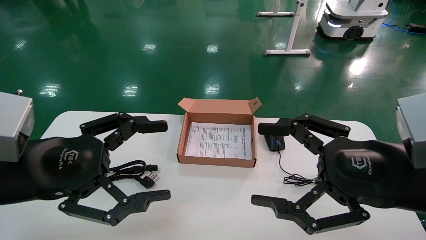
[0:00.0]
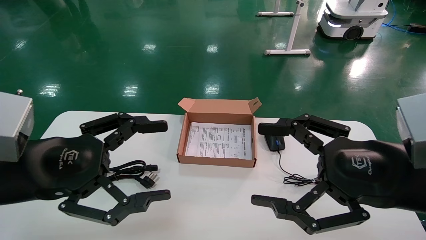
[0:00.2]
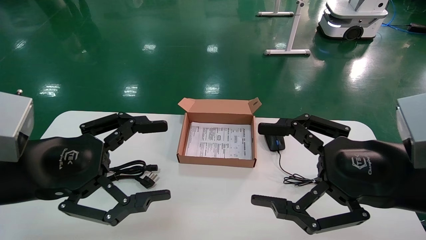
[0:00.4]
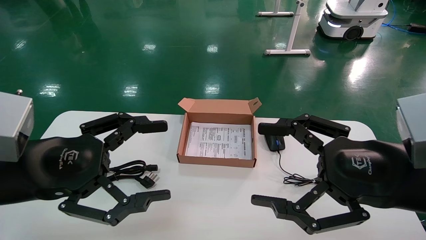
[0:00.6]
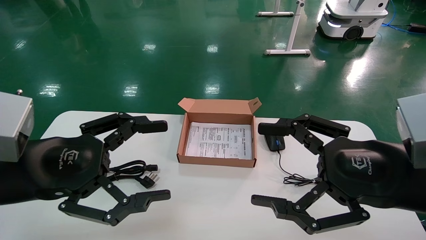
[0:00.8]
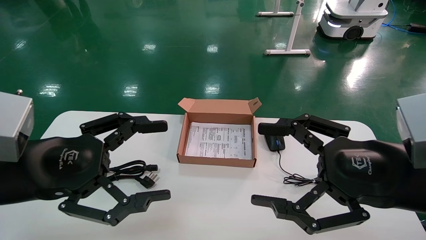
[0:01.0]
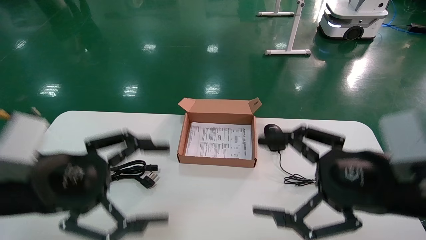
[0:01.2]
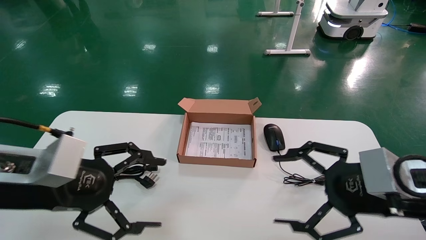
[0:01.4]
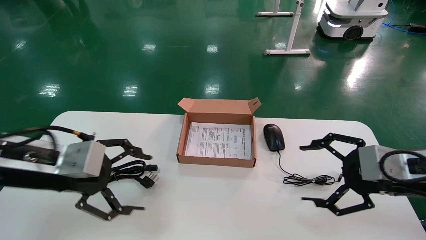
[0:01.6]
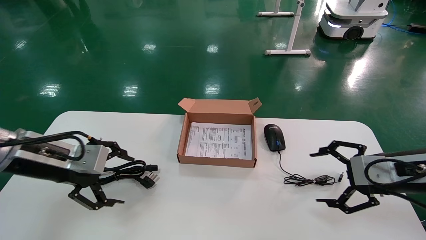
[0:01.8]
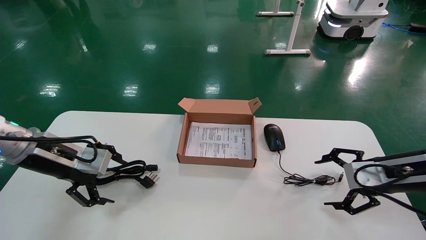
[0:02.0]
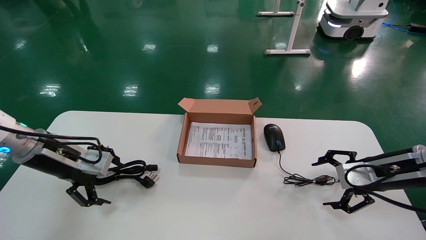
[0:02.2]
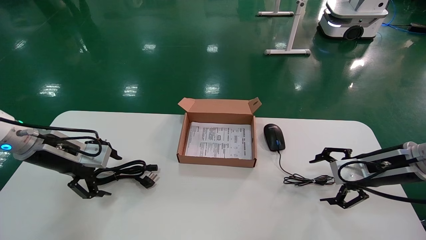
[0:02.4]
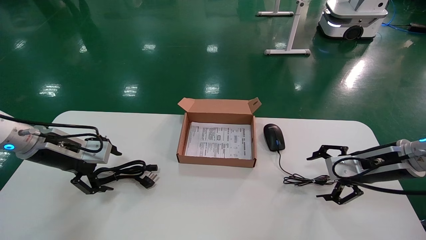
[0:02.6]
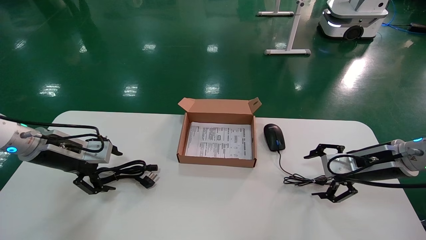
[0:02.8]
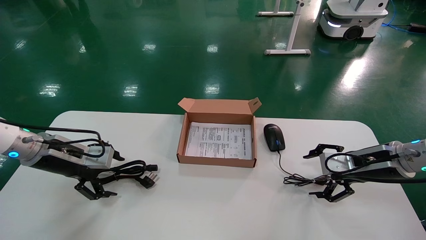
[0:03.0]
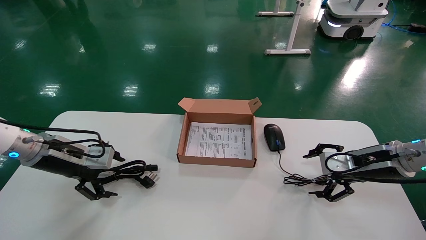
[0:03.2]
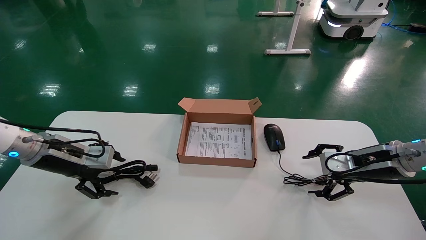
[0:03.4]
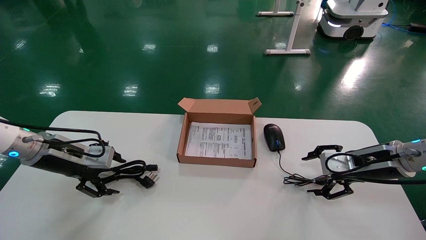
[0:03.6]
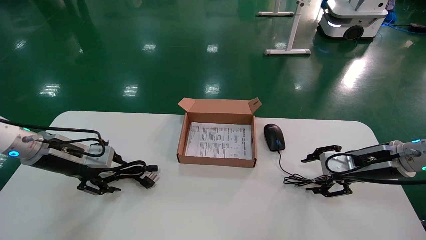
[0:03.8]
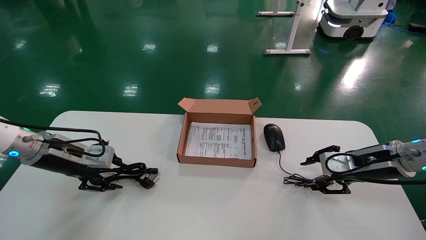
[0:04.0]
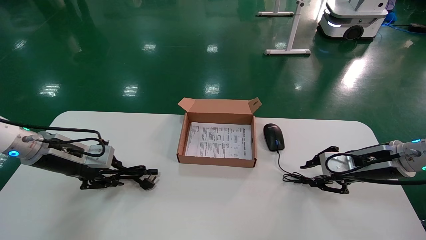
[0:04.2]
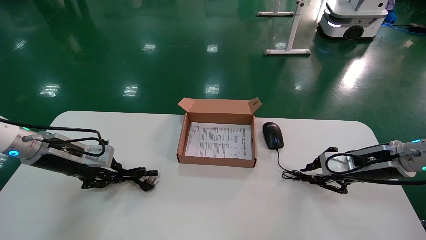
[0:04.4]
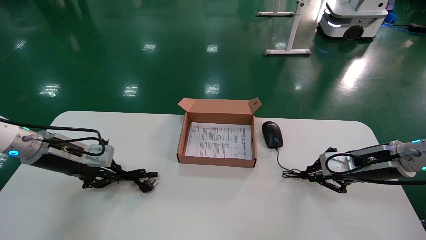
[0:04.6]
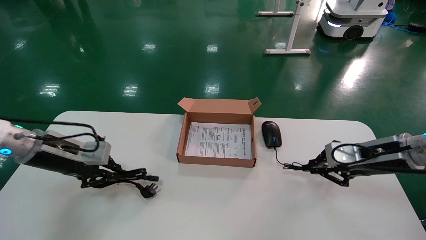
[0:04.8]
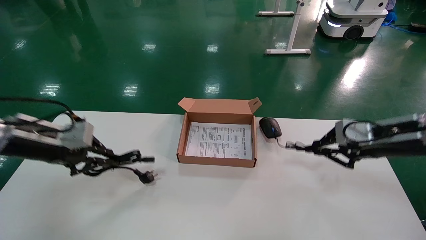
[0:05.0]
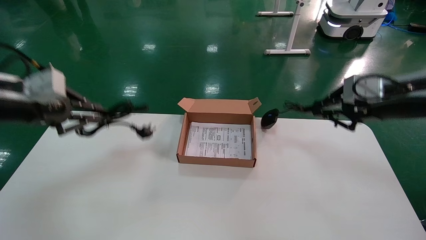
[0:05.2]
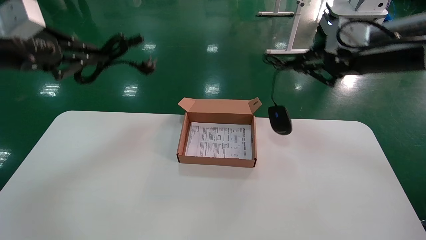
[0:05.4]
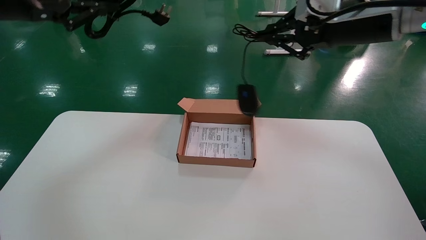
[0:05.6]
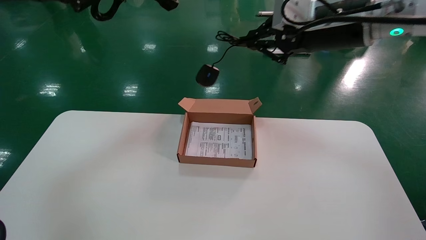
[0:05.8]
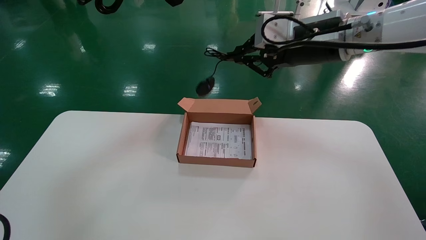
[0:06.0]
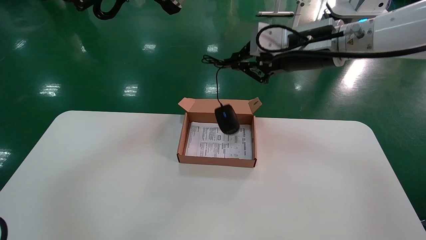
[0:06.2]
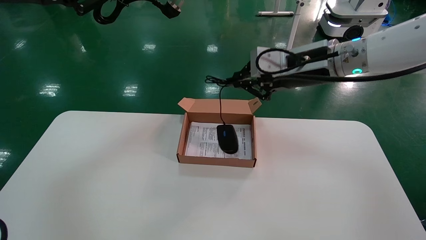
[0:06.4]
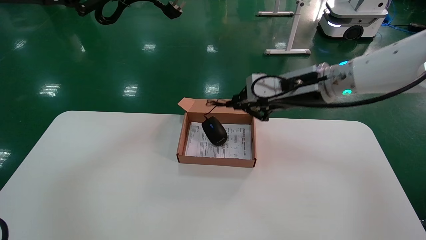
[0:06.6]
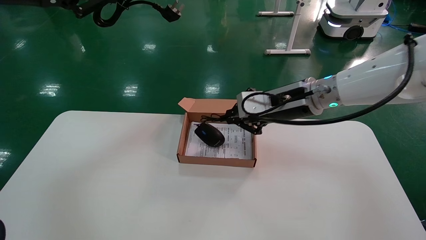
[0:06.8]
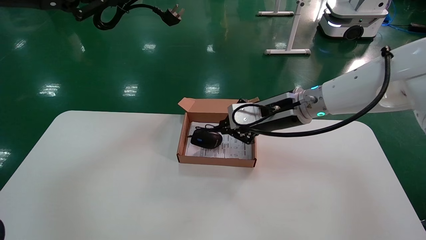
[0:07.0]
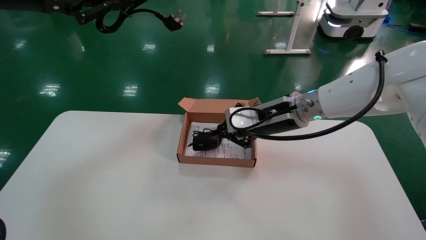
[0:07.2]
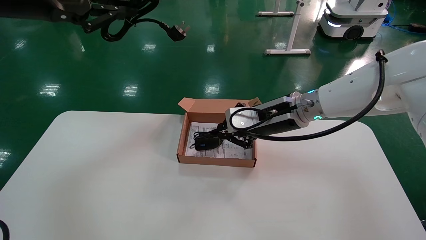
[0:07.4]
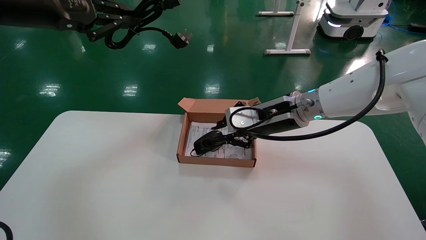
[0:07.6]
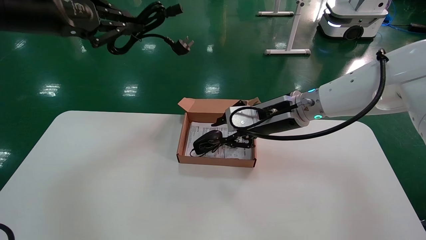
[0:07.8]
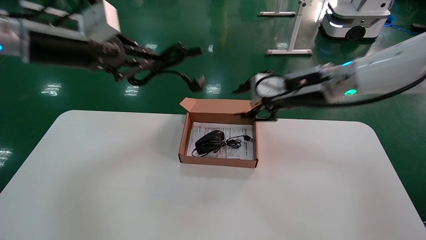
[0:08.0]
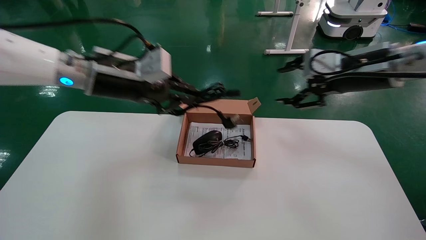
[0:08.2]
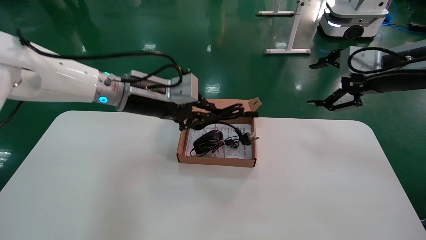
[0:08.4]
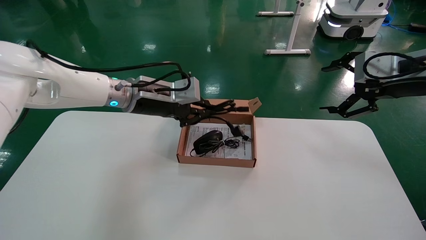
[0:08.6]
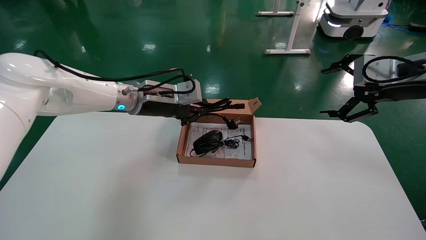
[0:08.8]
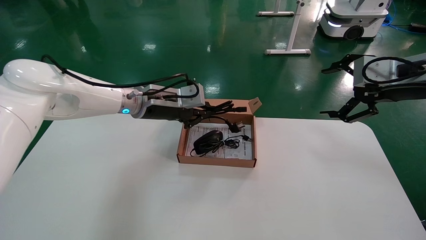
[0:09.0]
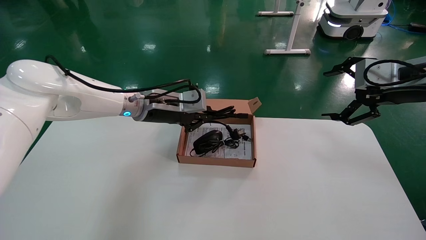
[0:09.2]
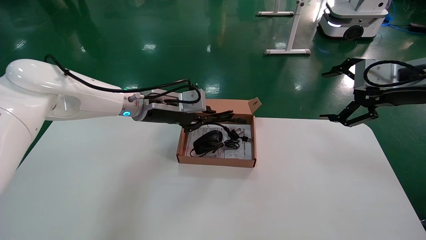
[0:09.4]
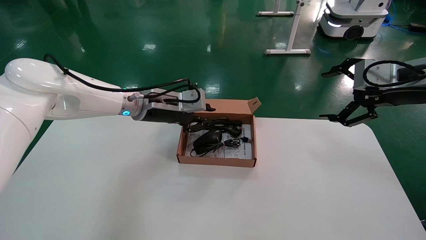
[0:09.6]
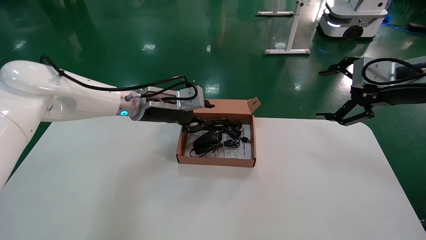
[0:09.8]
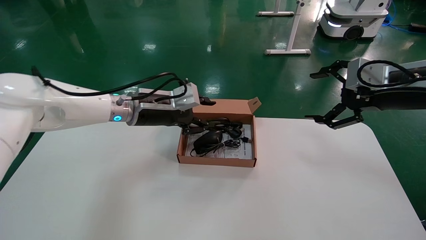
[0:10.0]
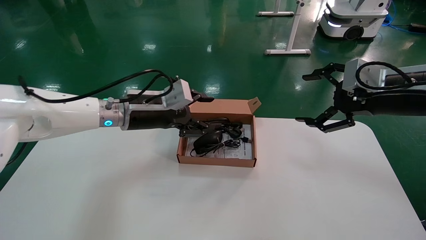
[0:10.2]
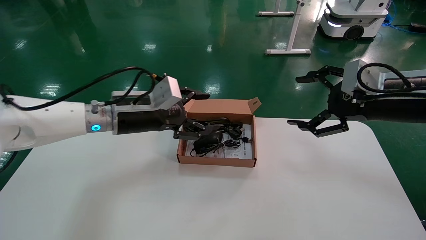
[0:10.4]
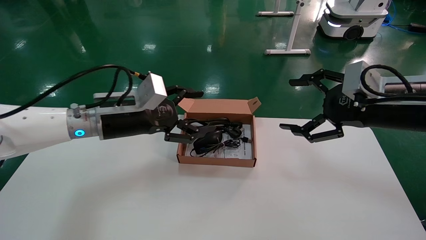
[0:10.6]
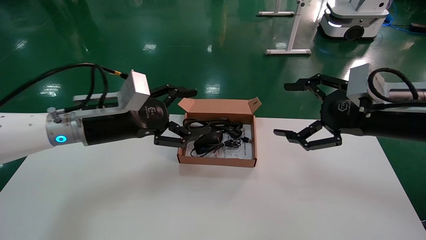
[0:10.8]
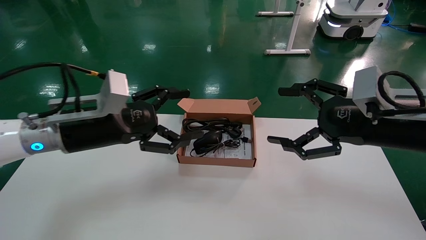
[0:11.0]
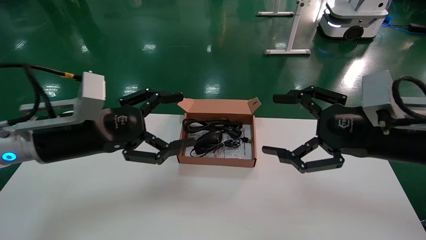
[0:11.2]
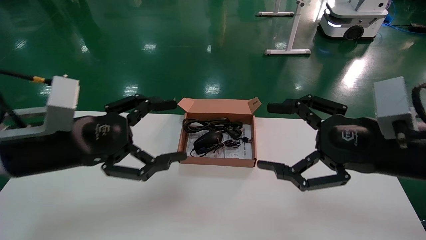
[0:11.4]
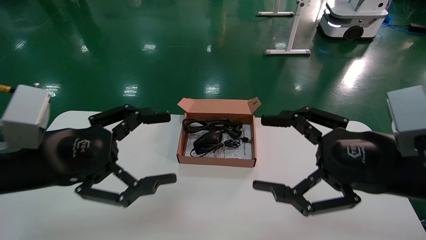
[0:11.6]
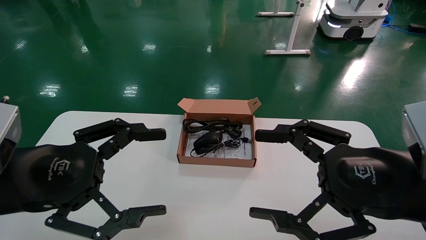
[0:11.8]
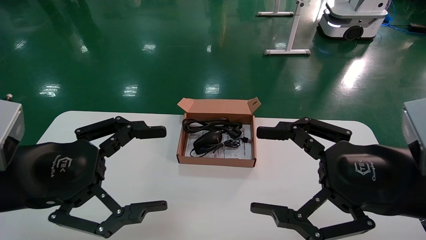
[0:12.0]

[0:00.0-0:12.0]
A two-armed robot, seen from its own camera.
Step, 0:01.4 to 0:04.8: Grab and lift both the mouse and power cord from the accessory packaging area at the same time.
Step, 0:05.0 to 0:10.0: Place the mouse and power cord into the box.
0:00.0 to 0:01.6: The right gripper moves forward and to the right, some 10 cm, while the left gripper shifts some 5 cm forward.
0:01.6 to 0:03.0: The right gripper heads forward and downward, covering about 10 cm, while the left gripper moves forward and to the left, roughly 15 cm.
0:03.0 to 0:04.4: The left gripper closes. Meanwhile the right gripper closes.
0:04.4 to 0:06.0: The right gripper goes approximately 25 cm upward and to the left. Meanwhile the left gripper is displaced upward by approximately 30 cm.
0:06.0 to 0:07.6: The right gripper goes approximately 15 cm downward and to the left.
0:07.6 to 0:09.0: The left gripper goes approximately 25 cm downward, to the right and forward; the right gripper travels to the right by approximately 20 cm, and opens up.
0:09.0 to 0:10.4: The right gripper changes place by about 5 cm; the left gripper travels backward by some 5 cm, and opens its fingers.
0:10.4 to 0:12.0: The left gripper moves backward, about 20 cm; the right gripper moves backward and to the left, approximately 15 cm.

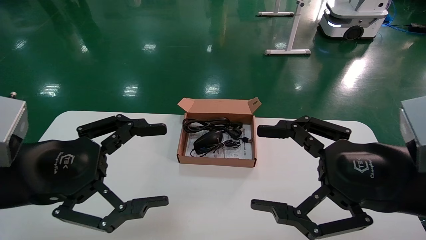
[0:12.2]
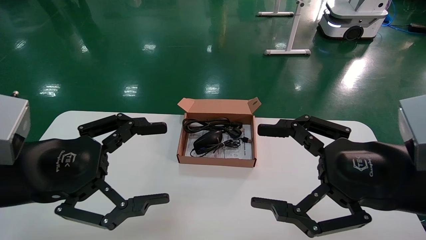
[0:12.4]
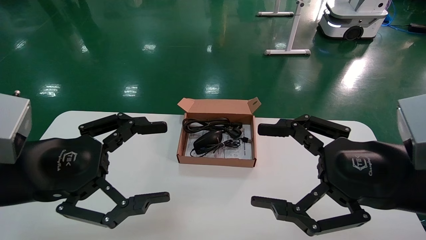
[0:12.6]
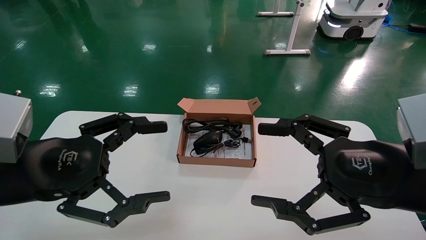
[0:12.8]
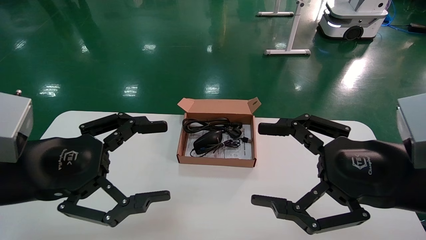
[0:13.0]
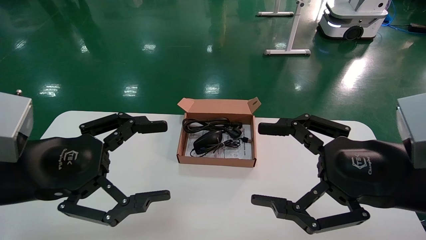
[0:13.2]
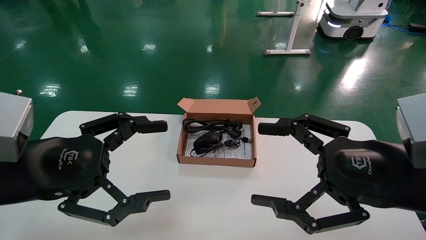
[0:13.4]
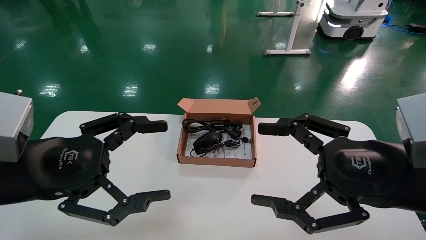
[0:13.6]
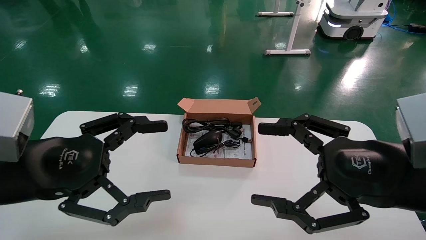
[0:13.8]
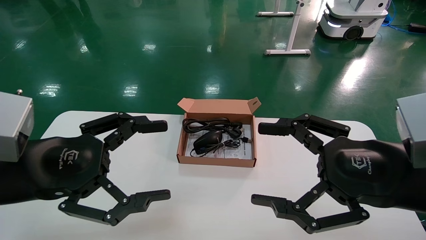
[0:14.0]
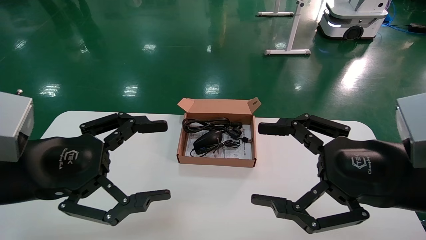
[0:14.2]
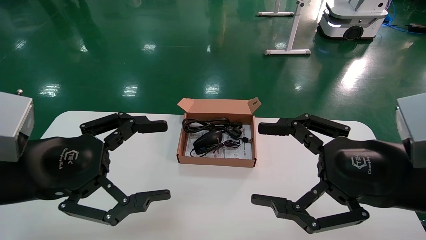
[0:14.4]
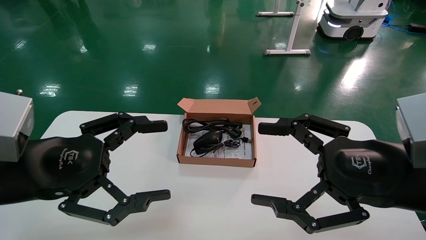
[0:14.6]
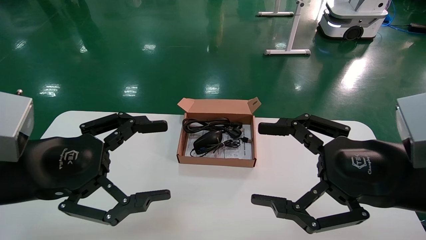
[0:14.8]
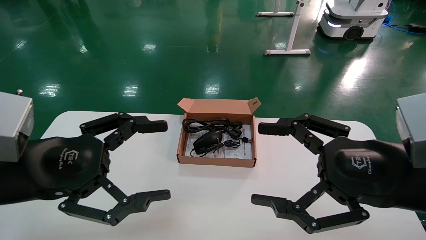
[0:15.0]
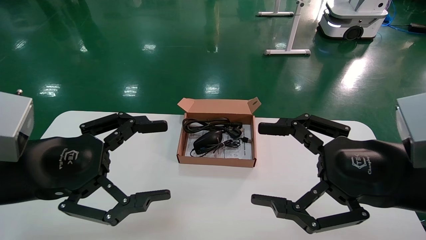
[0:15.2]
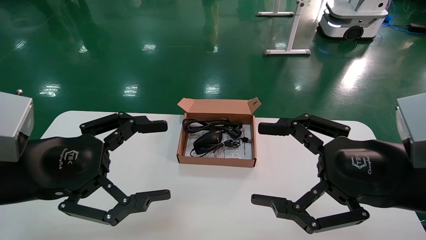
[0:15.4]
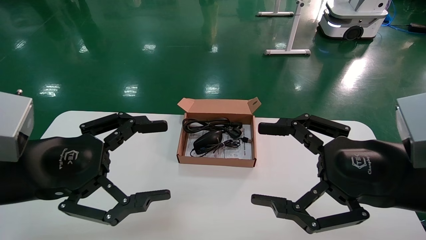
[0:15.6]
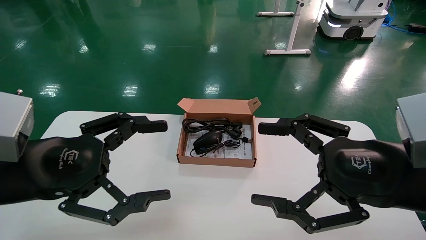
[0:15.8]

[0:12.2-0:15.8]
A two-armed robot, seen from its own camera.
0:12.2 to 0:15.8: Both grippers stay about where they are.
